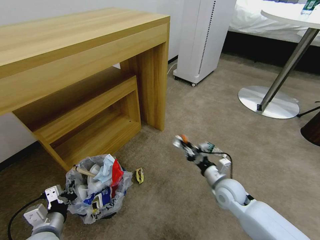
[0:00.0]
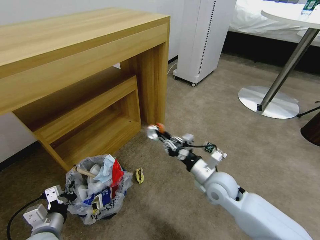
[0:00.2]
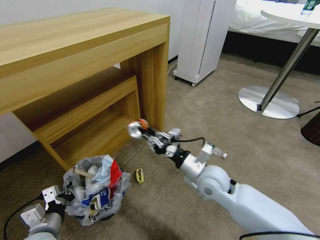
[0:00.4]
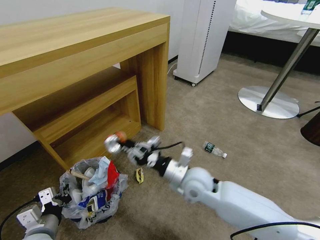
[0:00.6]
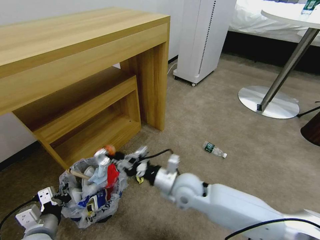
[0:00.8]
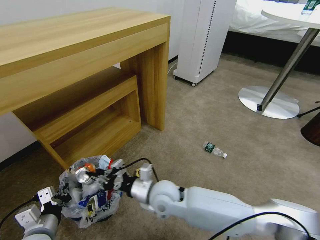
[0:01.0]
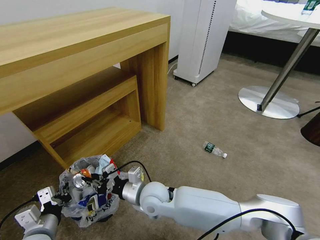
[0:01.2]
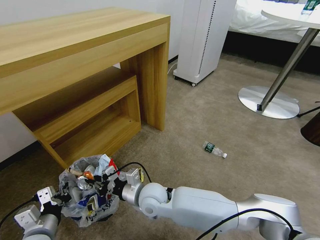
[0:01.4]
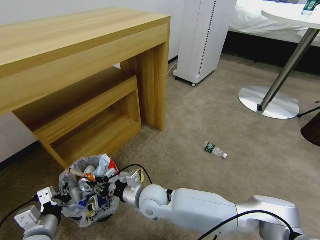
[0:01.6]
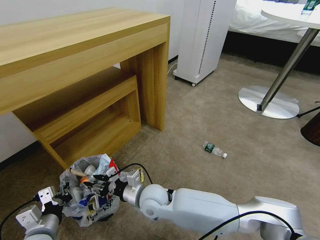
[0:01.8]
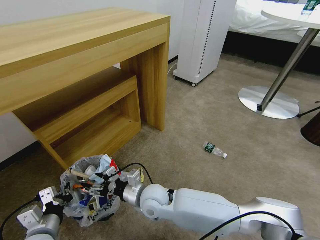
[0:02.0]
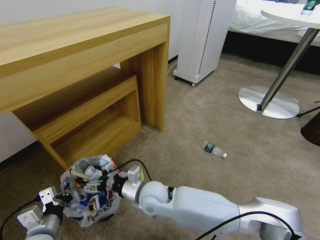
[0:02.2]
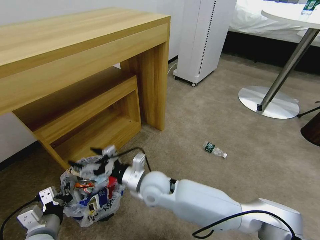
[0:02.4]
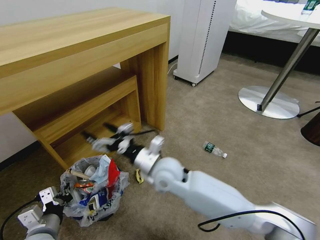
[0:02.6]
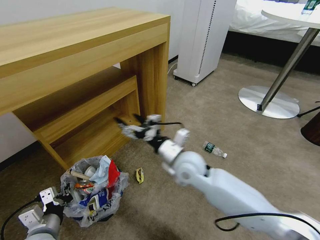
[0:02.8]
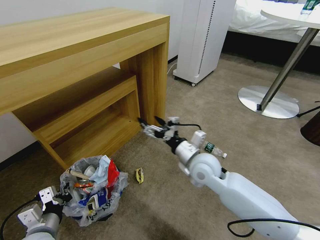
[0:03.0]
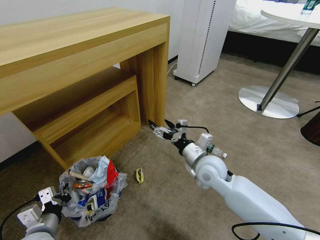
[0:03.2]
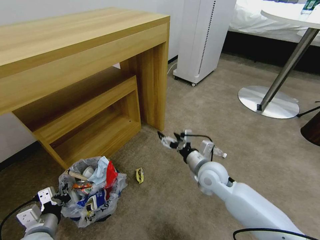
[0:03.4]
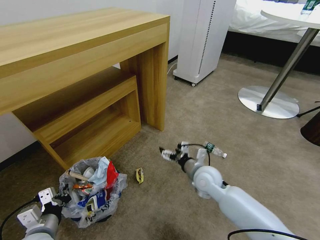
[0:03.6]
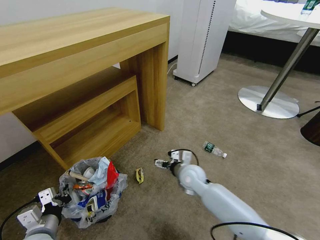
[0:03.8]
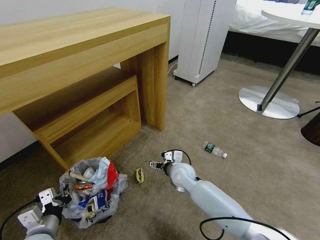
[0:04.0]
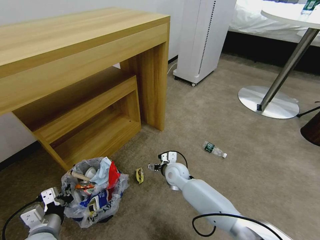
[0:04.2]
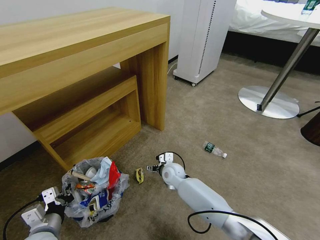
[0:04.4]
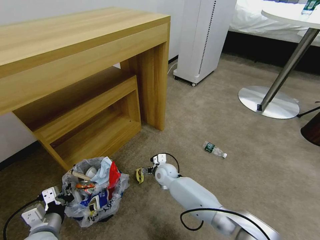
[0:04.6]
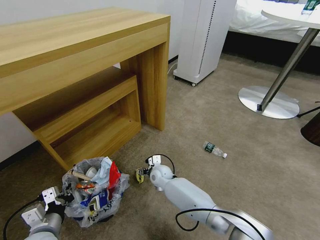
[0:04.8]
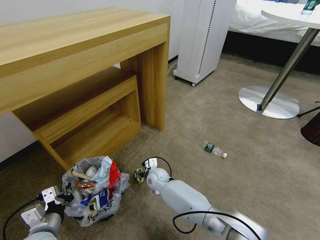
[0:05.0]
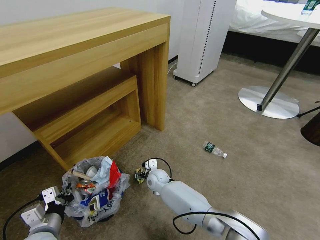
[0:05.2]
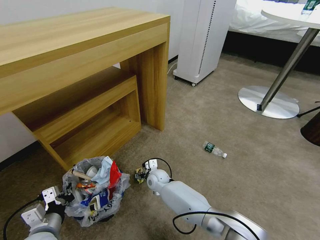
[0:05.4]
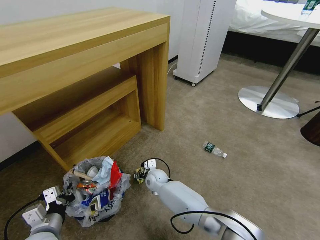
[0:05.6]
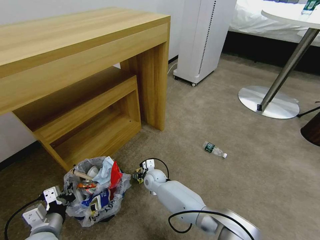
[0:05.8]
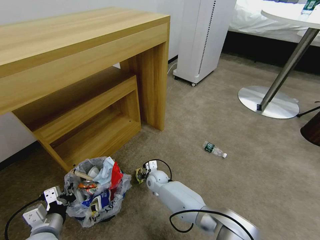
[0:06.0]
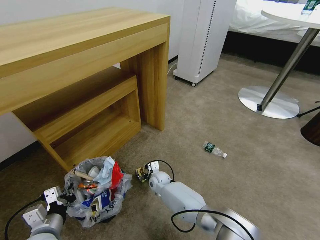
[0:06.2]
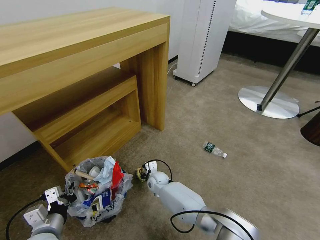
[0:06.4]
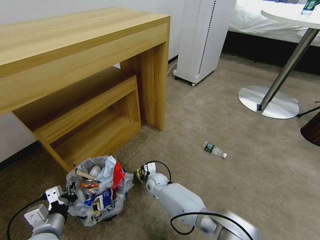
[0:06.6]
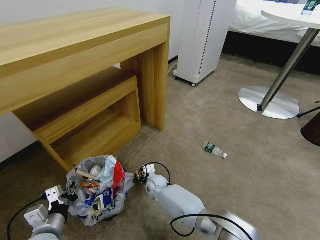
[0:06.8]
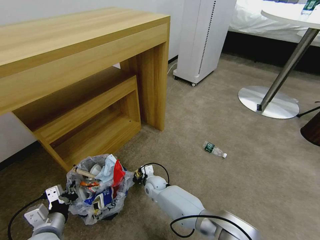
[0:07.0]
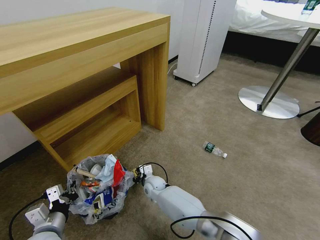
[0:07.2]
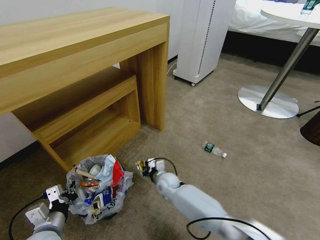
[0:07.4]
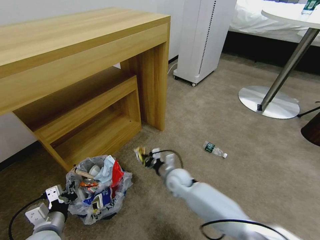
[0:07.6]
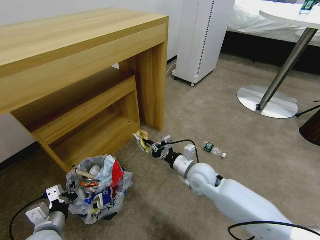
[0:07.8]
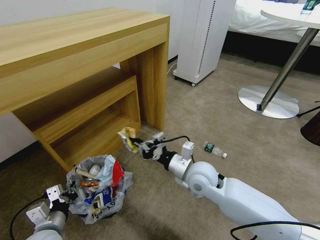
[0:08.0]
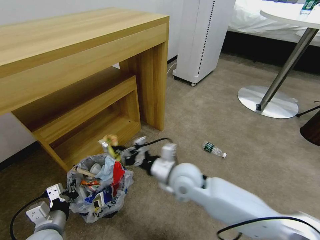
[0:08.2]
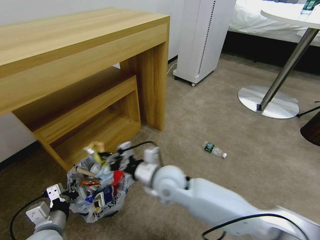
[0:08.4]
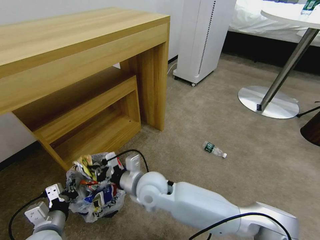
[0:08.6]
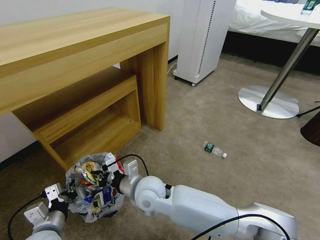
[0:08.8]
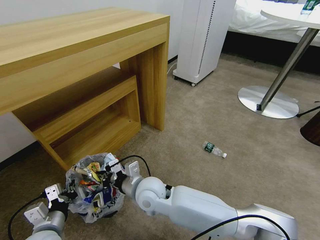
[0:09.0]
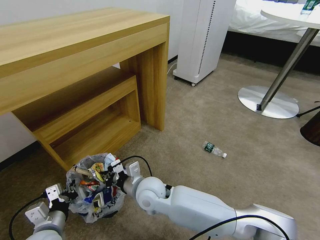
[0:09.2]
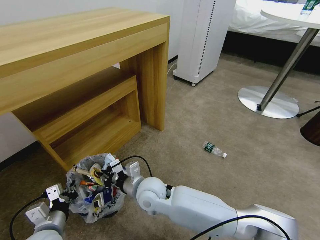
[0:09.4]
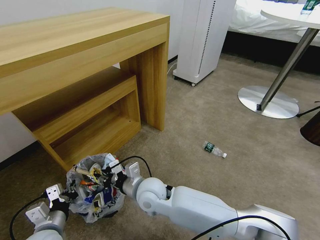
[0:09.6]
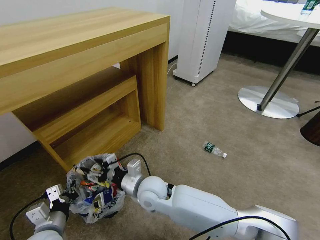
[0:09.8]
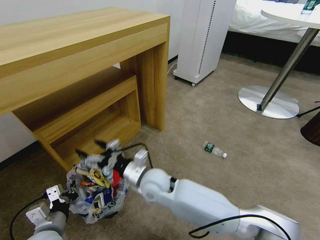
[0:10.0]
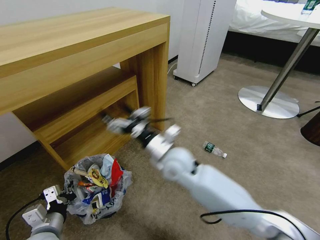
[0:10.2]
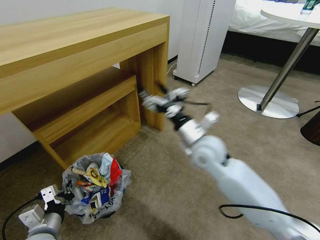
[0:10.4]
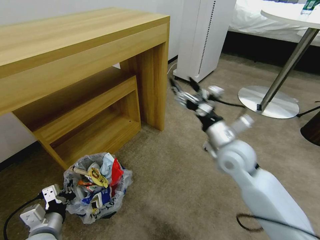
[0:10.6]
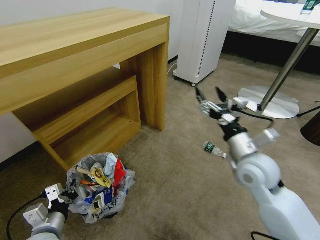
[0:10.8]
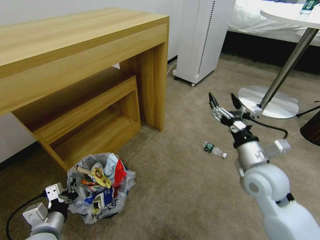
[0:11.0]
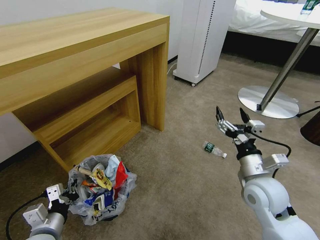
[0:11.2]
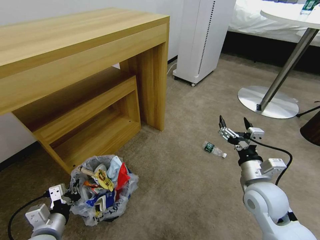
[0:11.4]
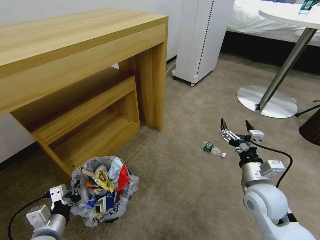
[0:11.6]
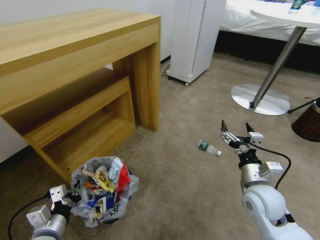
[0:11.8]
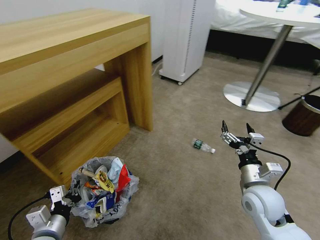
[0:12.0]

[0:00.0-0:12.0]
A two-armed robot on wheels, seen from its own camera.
Task of the whole recording: Pick up the trash bin and place the garbage on the floor into it.
0:00.0 to 0:01.6: The right gripper travels to the left by about 25 cm.
0:01.6 to 0:03.0: The right gripper travels to the right and upward by some 20 cm, and opens its fingers.
0:03.0 to 0:04.4: The right gripper shifts some 20 cm downward, to the left and forward.
0:04.4 to 0:06.0: The right gripper shifts about 10 cm to the left and downward.
0:06.0 to 0:07.6: The right gripper is displaced to the right and upward by some 10 cm, and closes up.
0:07.6 to 0:09.0: The right gripper heads to the left, upward and backward, covering roughly 20 cm.
0:09.0 to 0:10.4: The right gripper travels to the right, upward and forward by some 20 cm, and opens its fingers.
0:10.4 to 0:12.0: The right gripper moves to the right, backward and downward, some 20 cm.

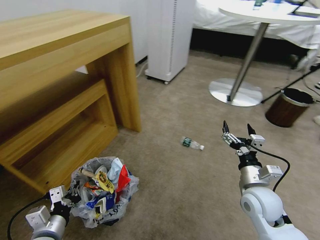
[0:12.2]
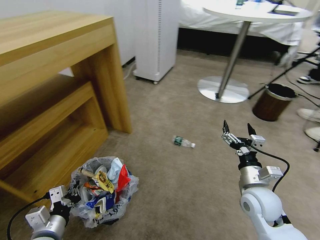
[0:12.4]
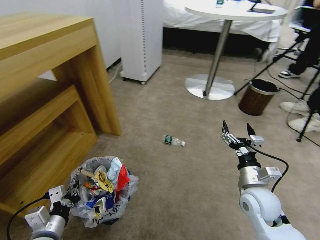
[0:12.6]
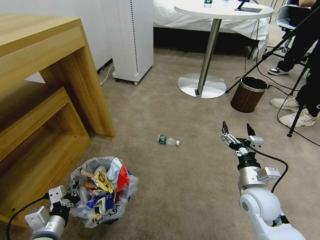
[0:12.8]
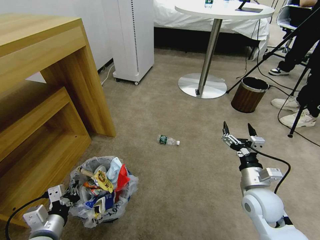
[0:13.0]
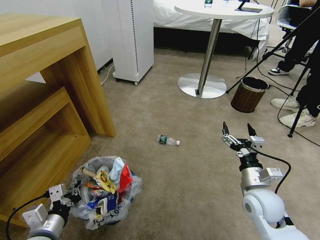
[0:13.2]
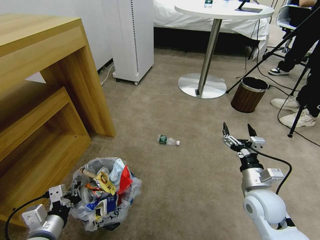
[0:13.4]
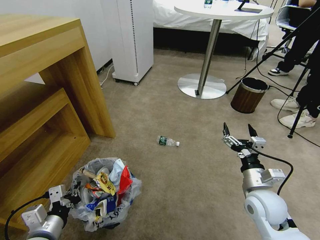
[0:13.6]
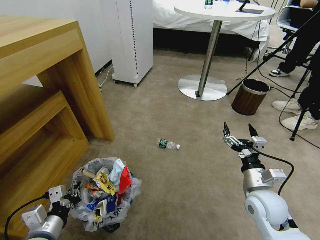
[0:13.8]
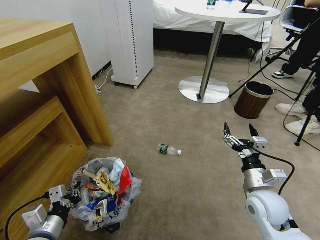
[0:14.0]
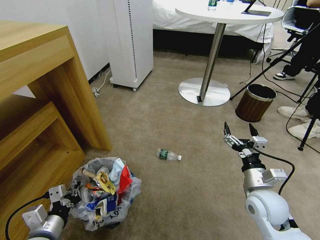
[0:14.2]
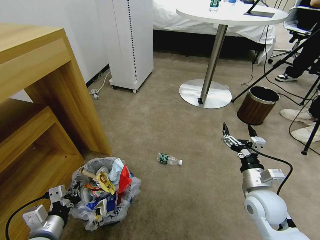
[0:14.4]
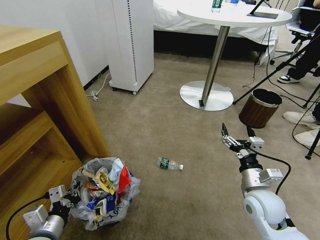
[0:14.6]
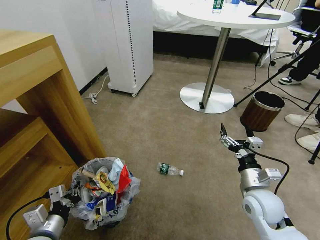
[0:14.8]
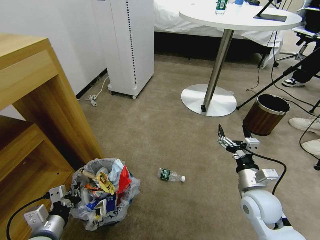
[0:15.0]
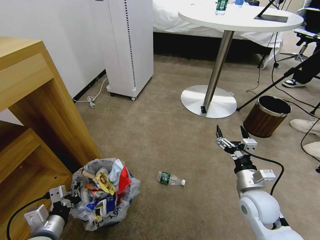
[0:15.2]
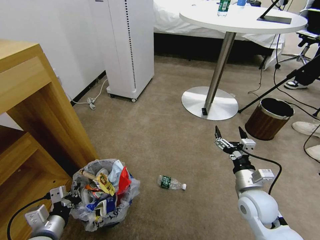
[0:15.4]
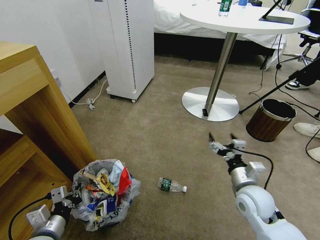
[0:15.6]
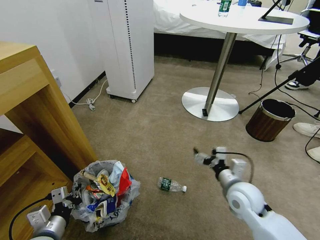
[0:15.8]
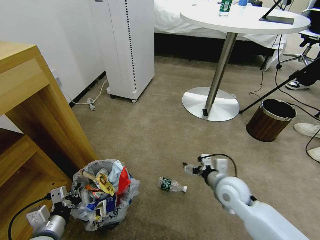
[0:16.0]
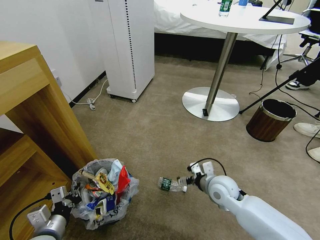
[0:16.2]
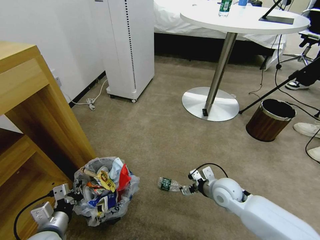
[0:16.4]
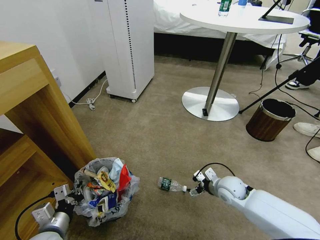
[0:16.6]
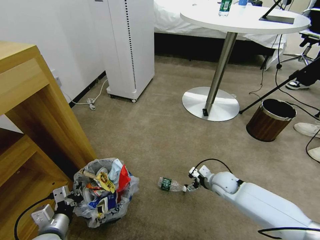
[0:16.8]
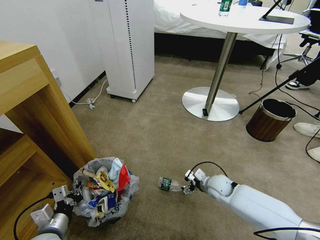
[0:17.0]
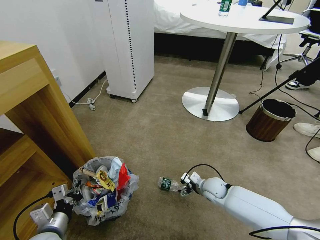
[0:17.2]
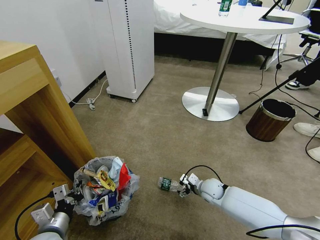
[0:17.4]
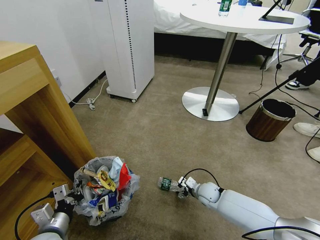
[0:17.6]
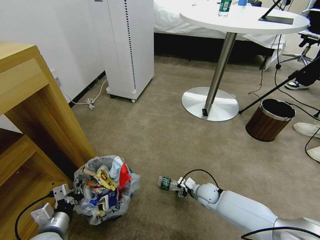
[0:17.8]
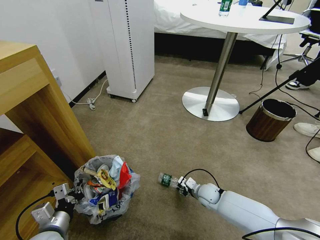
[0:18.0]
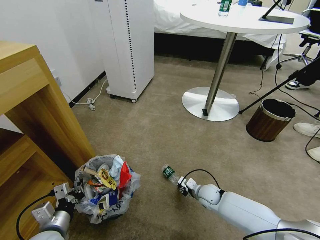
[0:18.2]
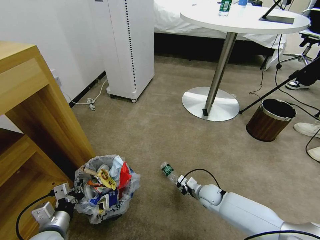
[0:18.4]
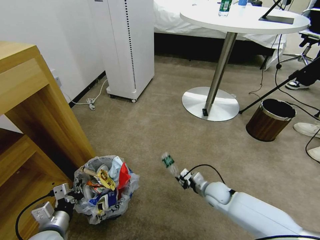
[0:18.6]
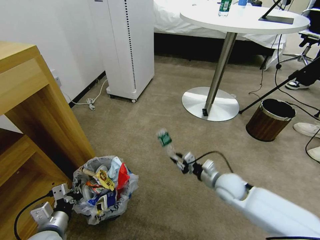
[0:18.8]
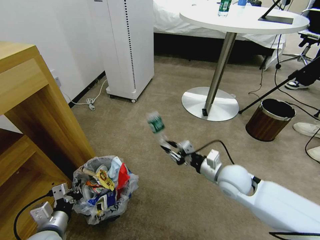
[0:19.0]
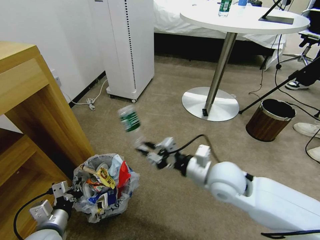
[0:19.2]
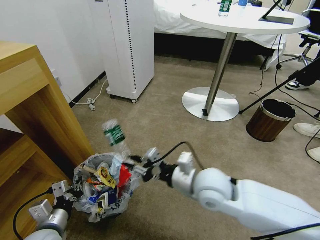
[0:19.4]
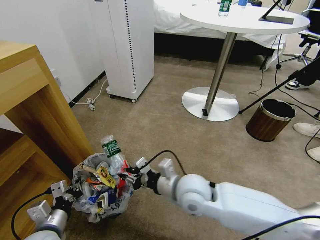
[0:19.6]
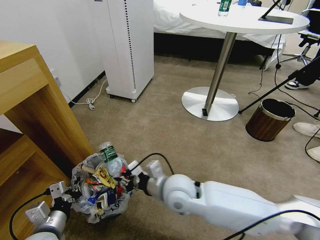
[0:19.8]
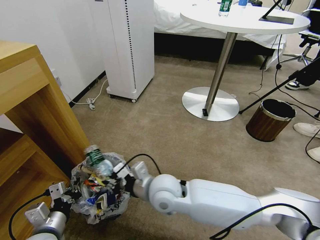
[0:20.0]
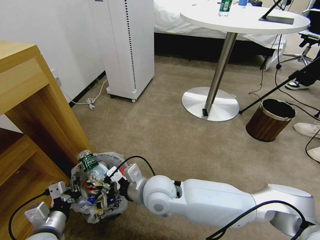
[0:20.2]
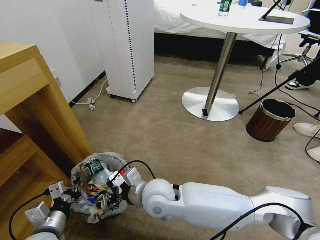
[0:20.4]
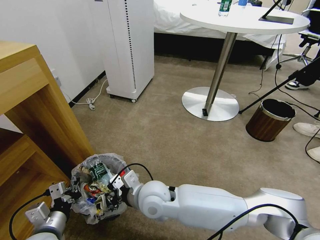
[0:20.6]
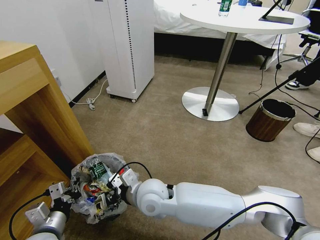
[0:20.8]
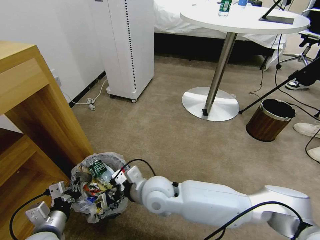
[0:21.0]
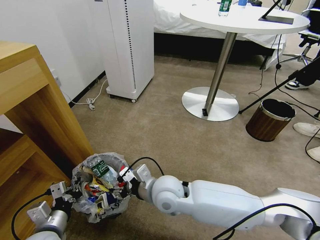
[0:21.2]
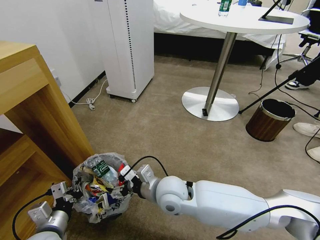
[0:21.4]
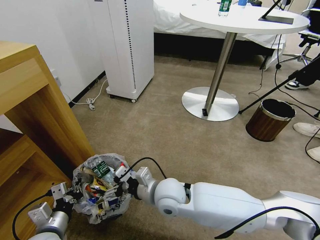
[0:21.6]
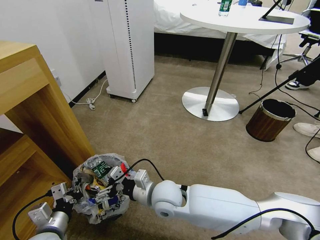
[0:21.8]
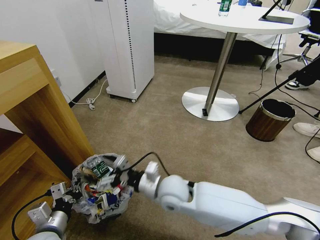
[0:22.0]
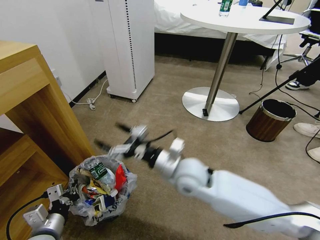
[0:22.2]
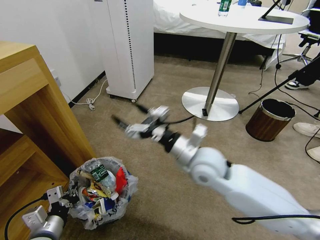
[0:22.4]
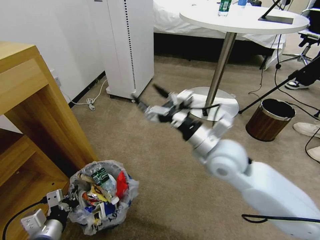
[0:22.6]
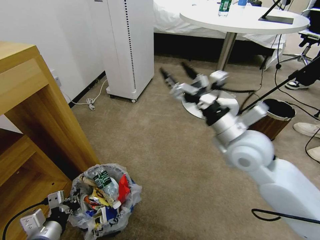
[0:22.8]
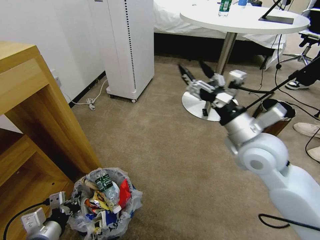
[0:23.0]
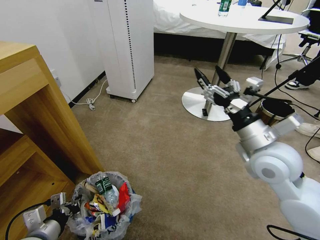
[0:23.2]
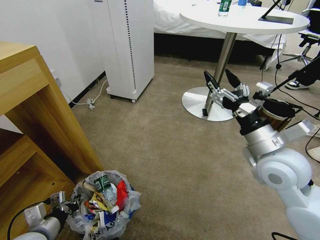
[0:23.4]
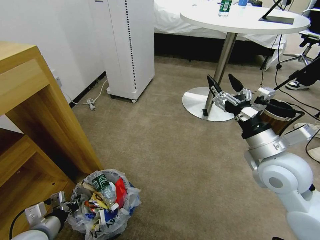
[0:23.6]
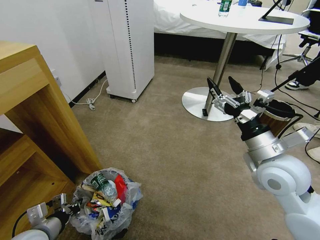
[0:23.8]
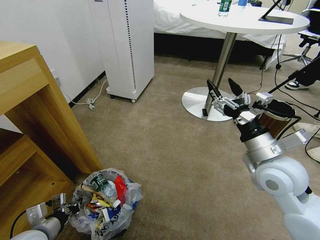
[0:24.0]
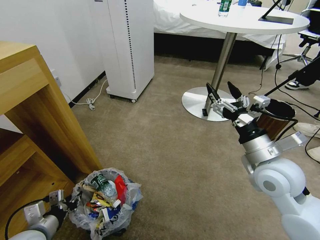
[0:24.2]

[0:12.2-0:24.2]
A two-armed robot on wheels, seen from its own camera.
Task of the whole recording: Pick up the trash bin and place the garbage on the floor into it.
0:15.2 to 0:16.6: The right gripper shifts roughly 10 cm forward and downward.
0:16.6 to 0:18.2: The right gripper heads downward and to the left, covering roughly 10 cm, and closes its fingers.
0:18.2 to 0:19.8: The right gripper goes roughly 30 cm upward and to the left.
0:19.8 to 0:21.2: The right gripper opens up.
0:21.2 to 0:22.6: The right gripper heads to the right and upward, covering some 20 cm, and opens.
0:22.6 to 0:24.2: The right gripper travels to the right by about 10 cm. Meanwhile the left gripper opens its fingers.
